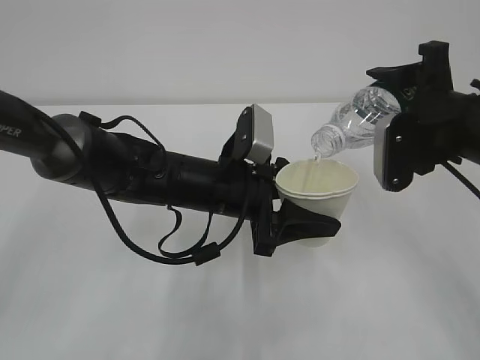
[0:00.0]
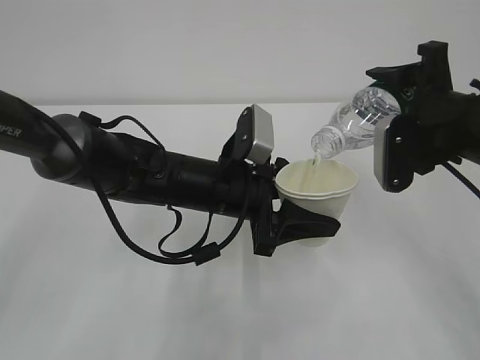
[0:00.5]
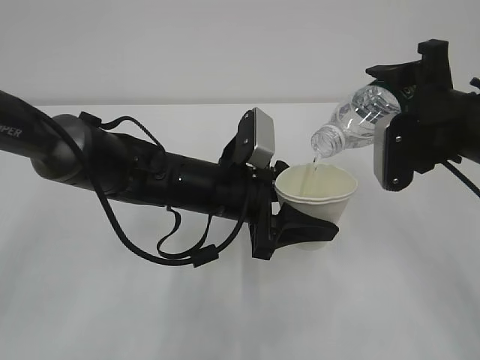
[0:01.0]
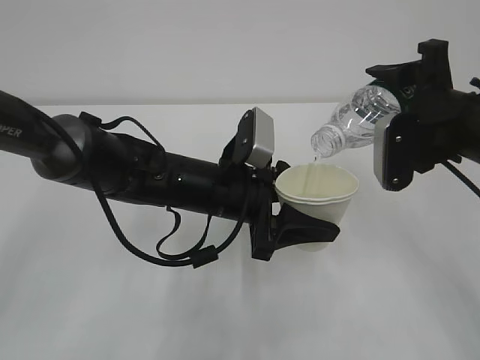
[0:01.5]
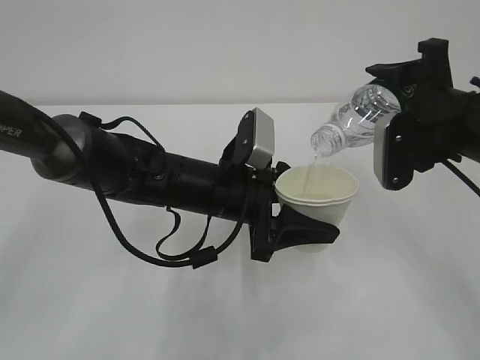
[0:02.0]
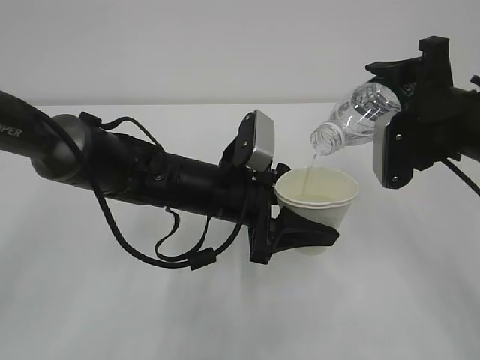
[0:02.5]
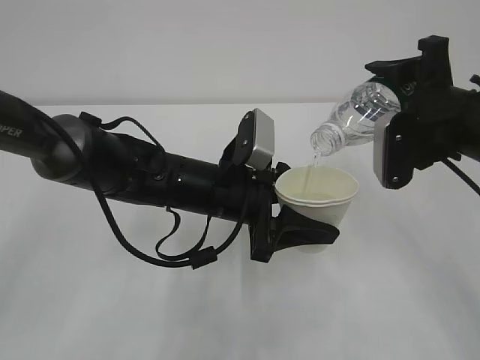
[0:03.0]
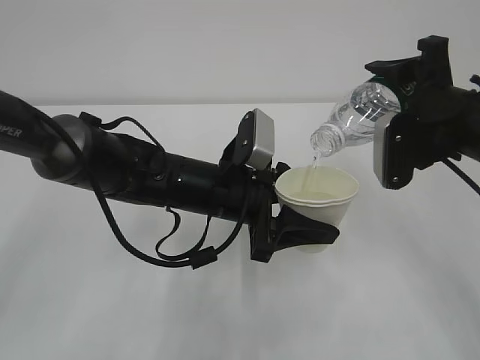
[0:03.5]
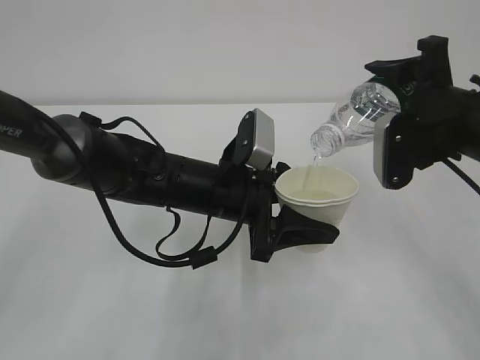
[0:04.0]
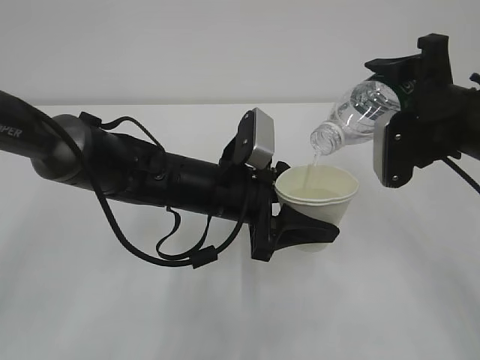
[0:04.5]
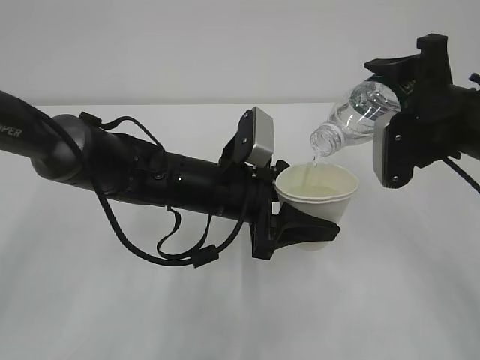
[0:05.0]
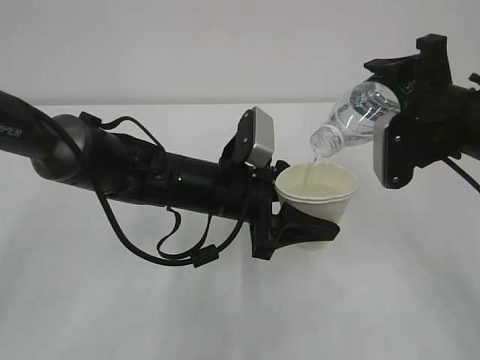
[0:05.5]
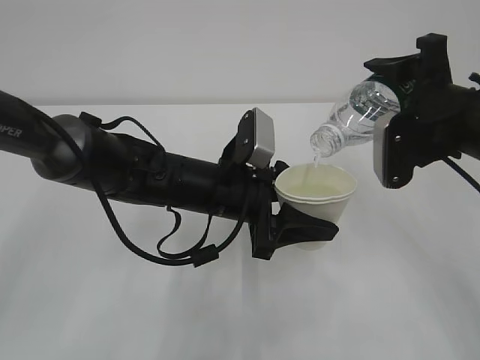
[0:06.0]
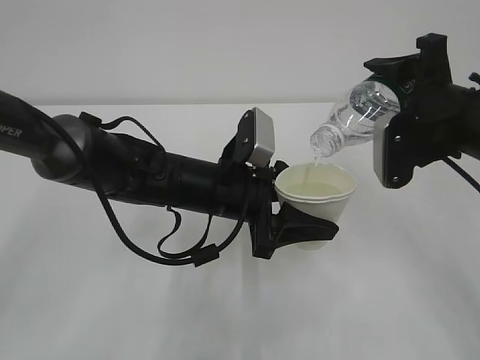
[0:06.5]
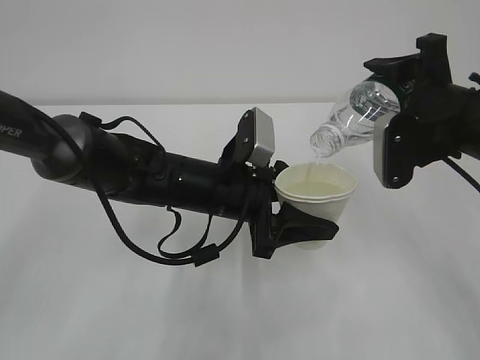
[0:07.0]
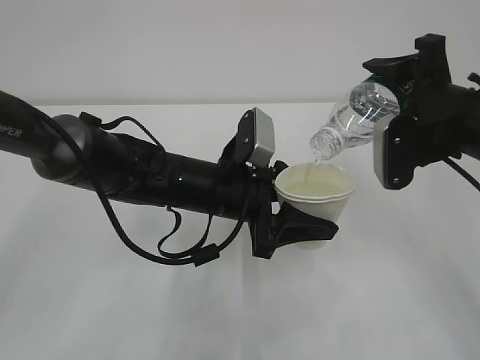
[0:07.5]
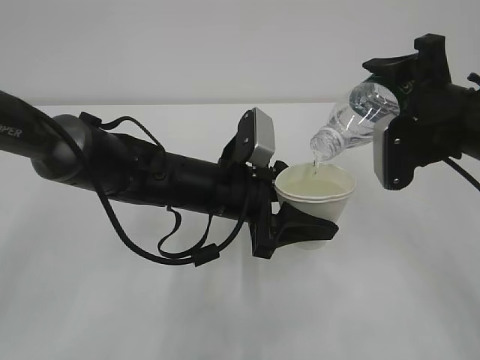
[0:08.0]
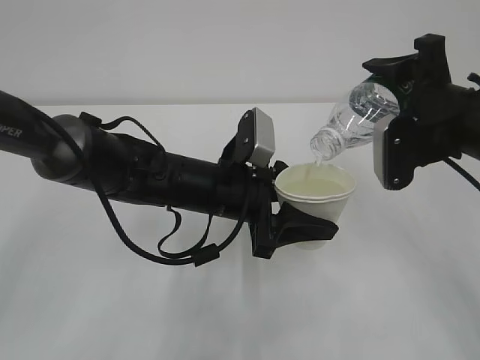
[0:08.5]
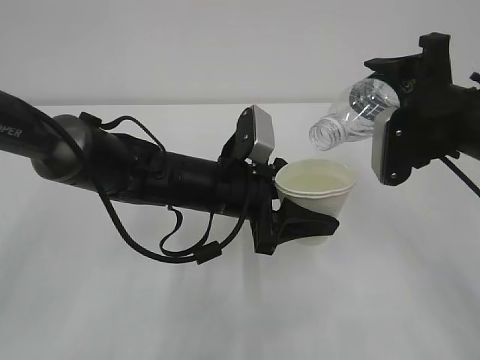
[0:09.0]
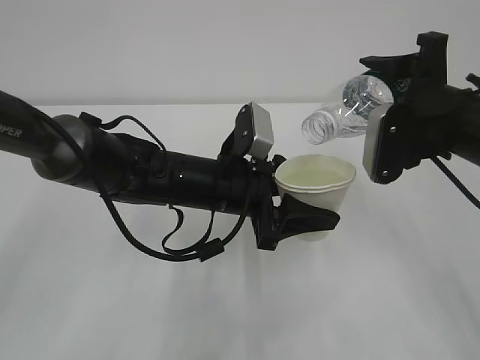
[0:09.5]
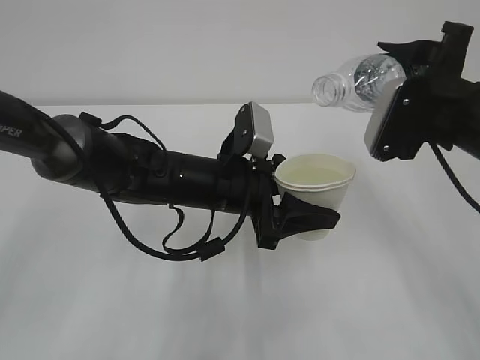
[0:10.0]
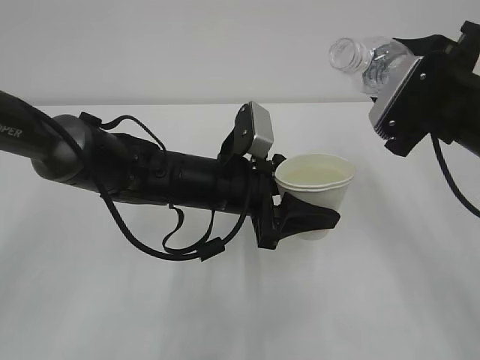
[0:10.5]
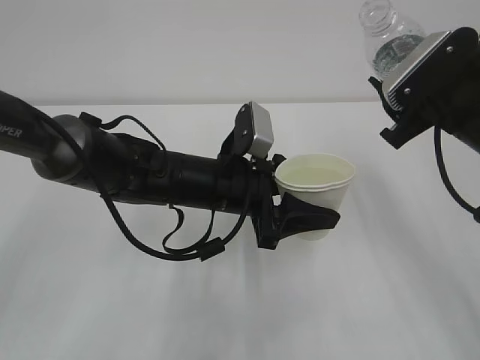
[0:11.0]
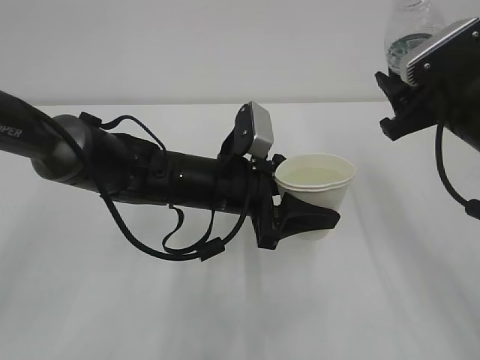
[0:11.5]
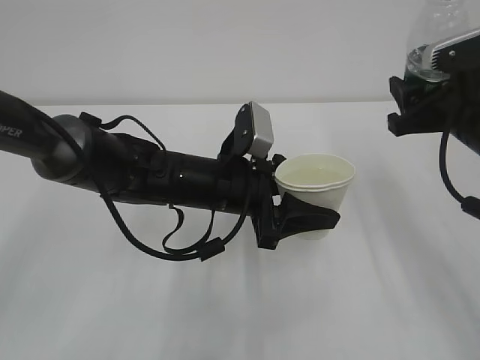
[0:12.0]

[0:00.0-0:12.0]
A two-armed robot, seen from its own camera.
0.0 to 6.0 s: Neither gripper changes place.
6.0 to 8.0 s: Neither gripper changes place.

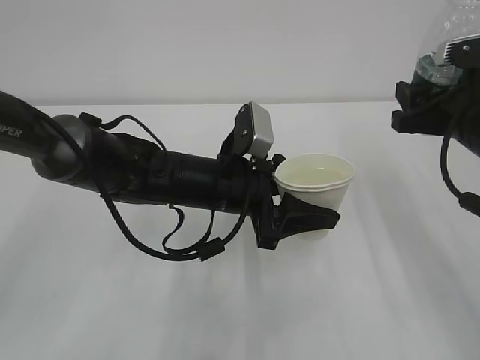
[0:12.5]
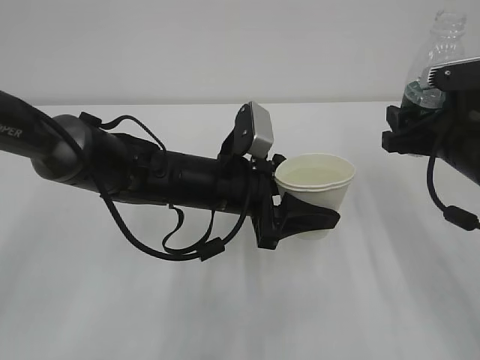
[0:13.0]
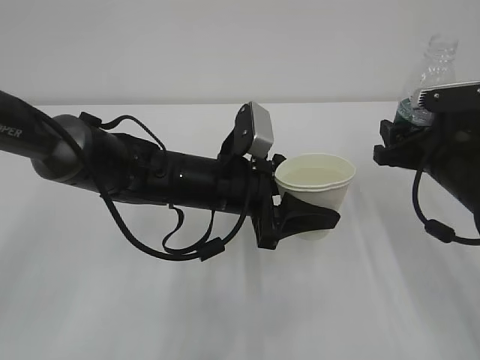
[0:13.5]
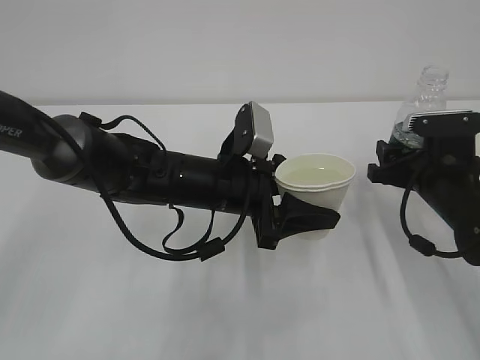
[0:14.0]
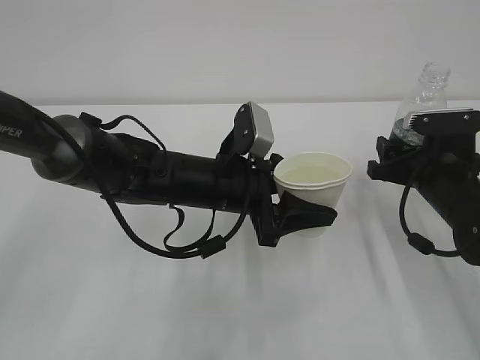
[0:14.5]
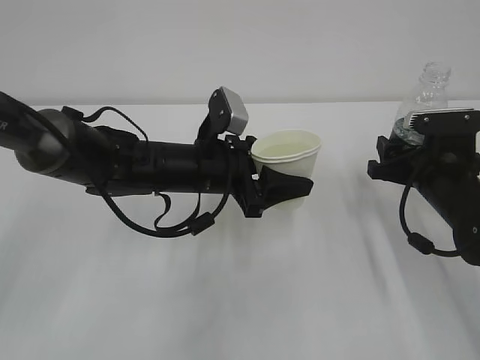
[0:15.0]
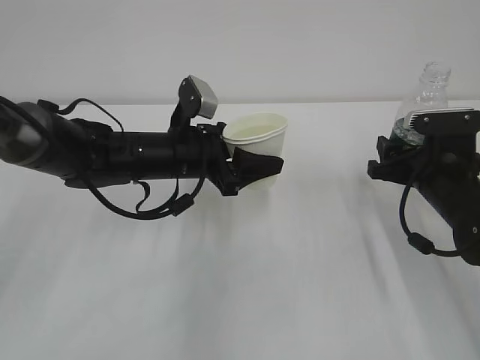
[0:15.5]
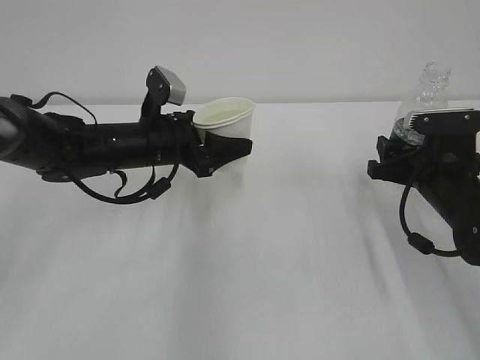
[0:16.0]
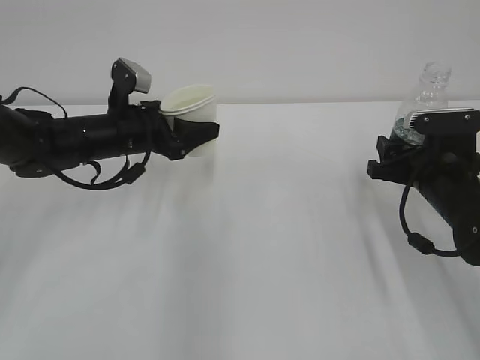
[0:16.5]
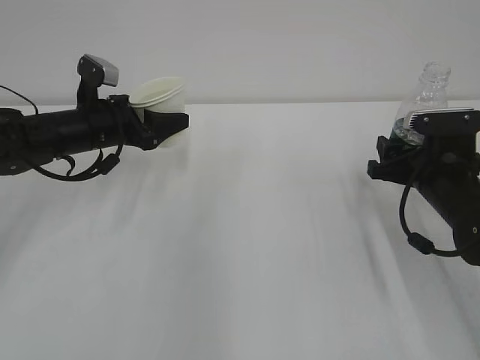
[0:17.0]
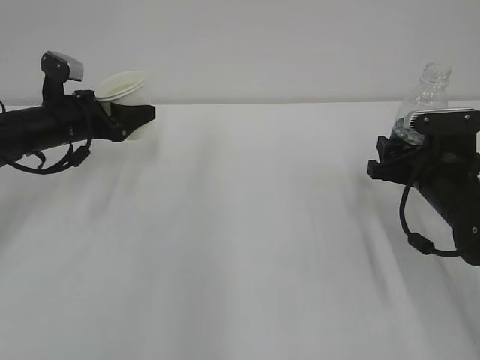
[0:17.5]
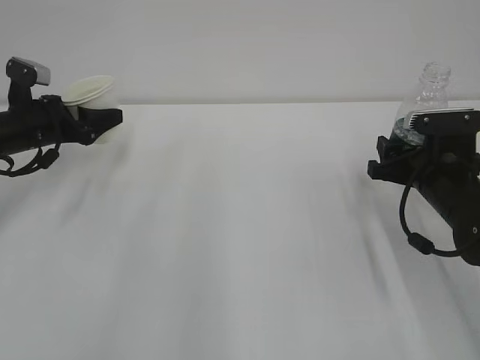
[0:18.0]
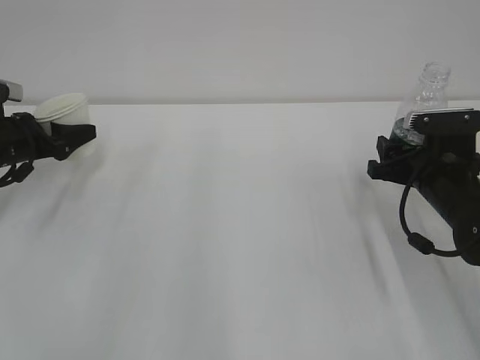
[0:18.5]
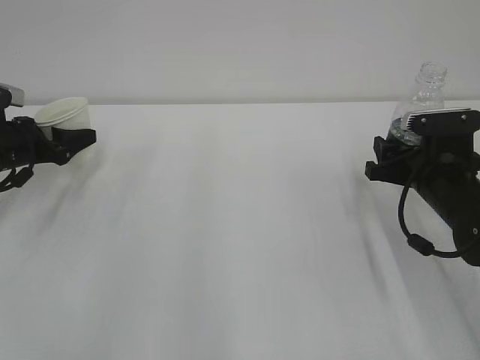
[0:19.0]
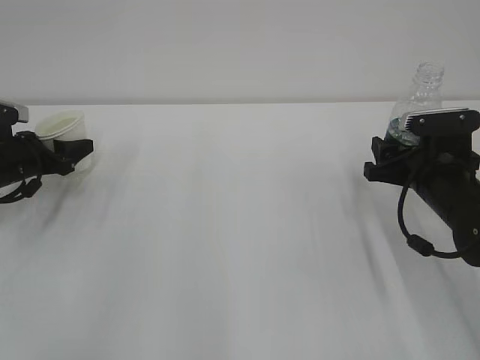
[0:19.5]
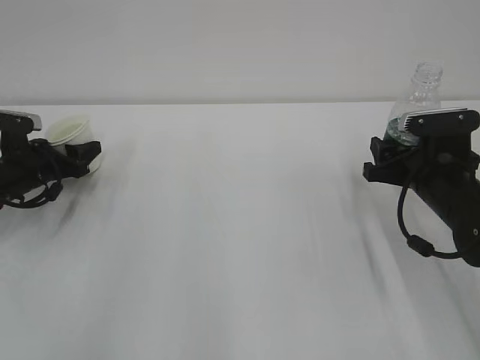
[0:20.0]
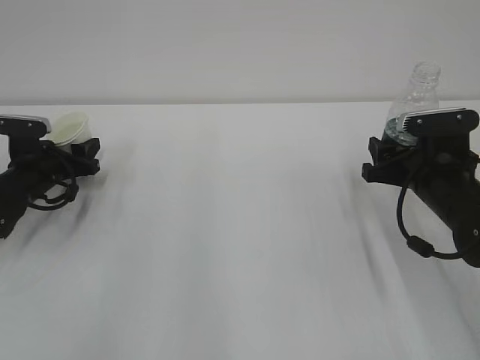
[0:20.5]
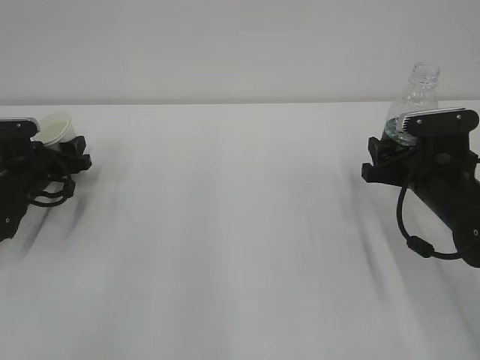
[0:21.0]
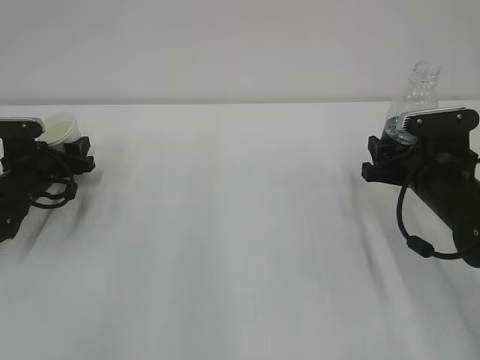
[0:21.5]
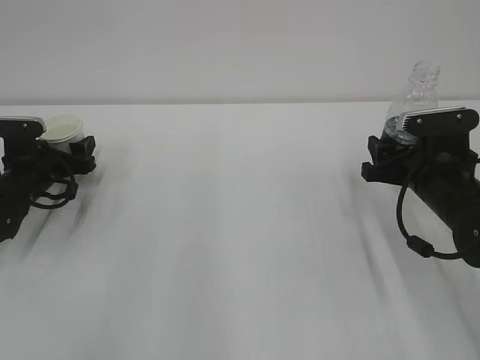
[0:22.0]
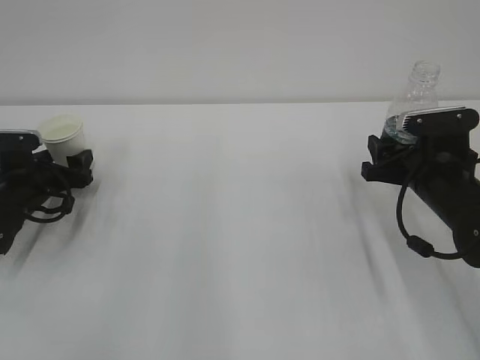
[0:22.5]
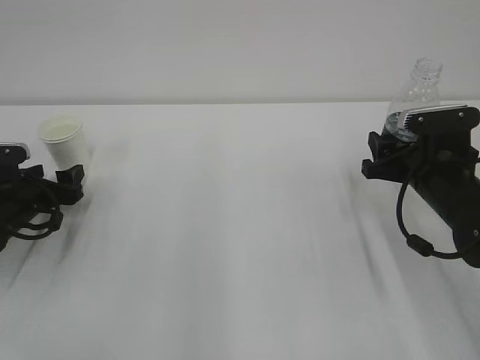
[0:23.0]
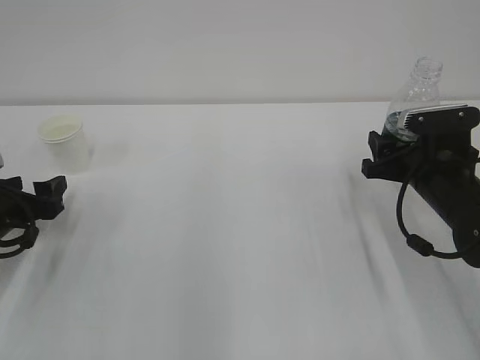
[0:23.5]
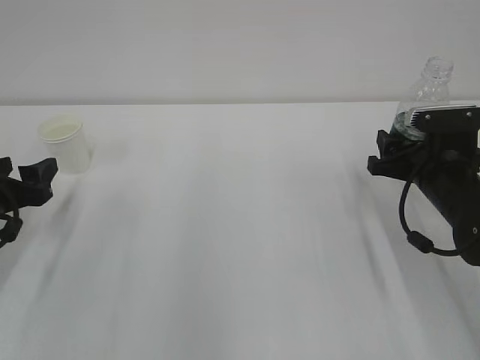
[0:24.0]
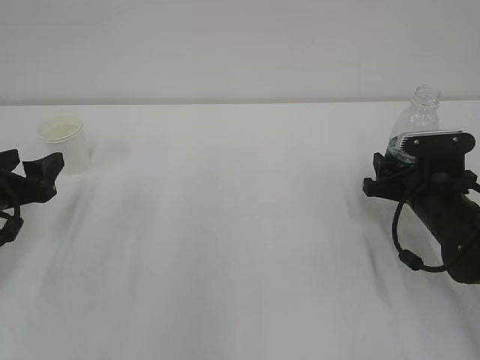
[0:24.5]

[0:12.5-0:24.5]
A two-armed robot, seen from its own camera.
12.5 to 14.5 s: The right gripper goes approximately 10 cm downward.
14.5 to 16.5 s: The left gripper heads to the left and forward, covering approximately 15 cm.
16.5 to 18.5 s: The left gripper is displaced to the left by some 15 cm.
18.5 to 20.5 s: The left gripper is displaced downward by approximately 5 cm.
20.5 to 22.5 s: The left gripper opens.
22.5 to 24.5 s: The left gripper shifts roughly 15 cm backward and upward.

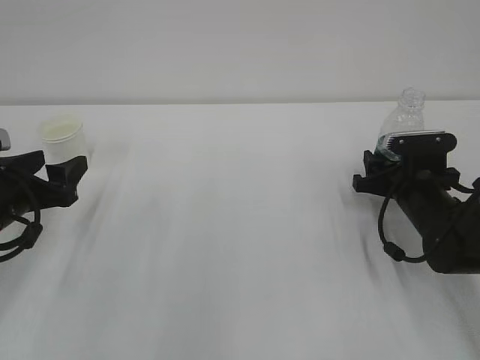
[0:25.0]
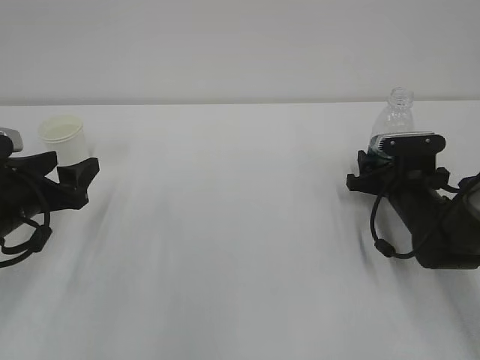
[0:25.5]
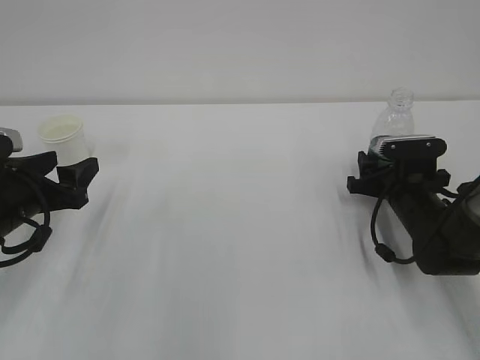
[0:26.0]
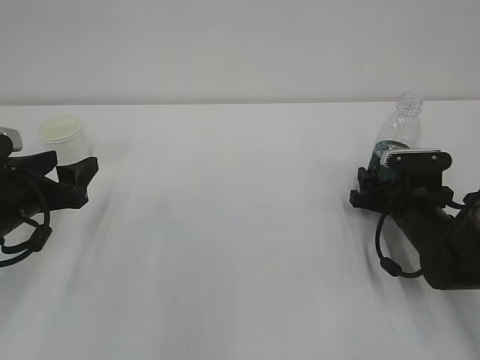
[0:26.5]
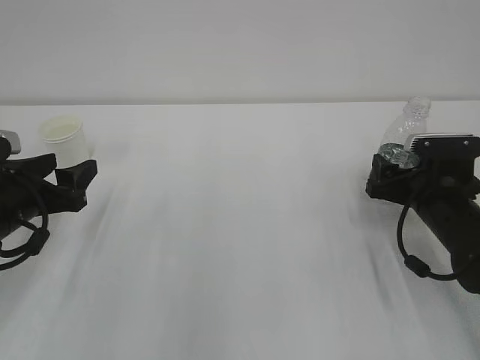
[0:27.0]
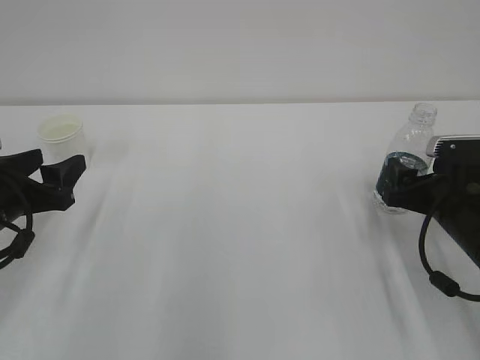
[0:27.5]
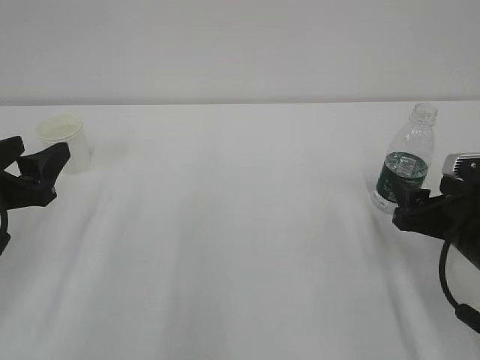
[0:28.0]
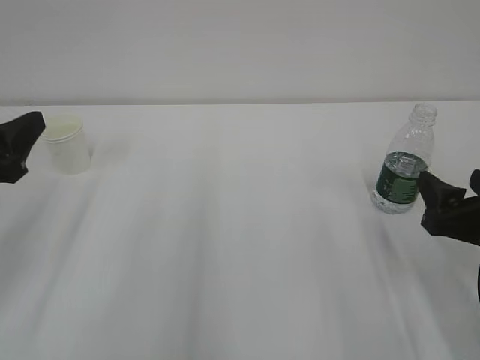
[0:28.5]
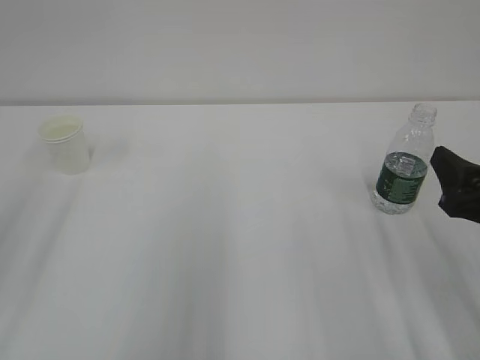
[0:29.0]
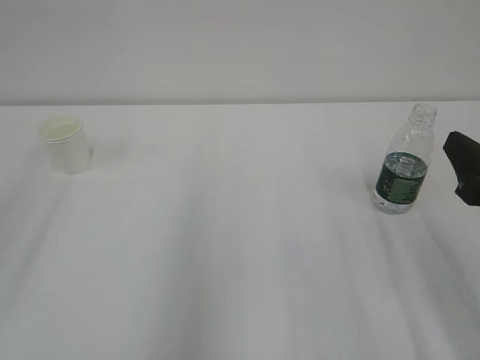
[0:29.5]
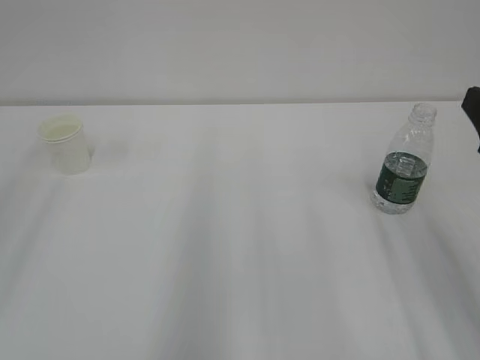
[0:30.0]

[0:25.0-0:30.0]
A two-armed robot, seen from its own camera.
25.0 to 27.5 s: The right gripper travels backward by some 5 cm.
27.5 to 30.0 s: Both grippers move upward and backward, approximately 20 cm.
